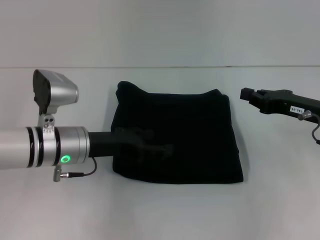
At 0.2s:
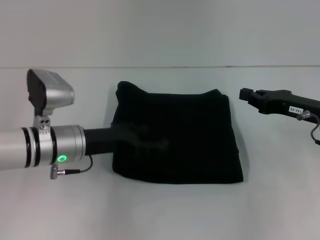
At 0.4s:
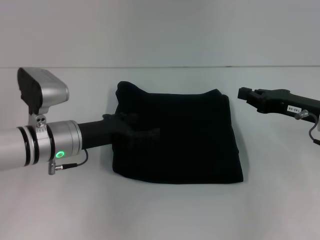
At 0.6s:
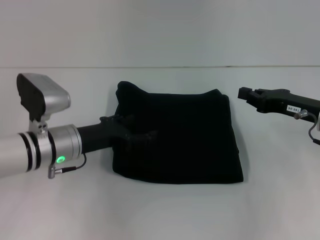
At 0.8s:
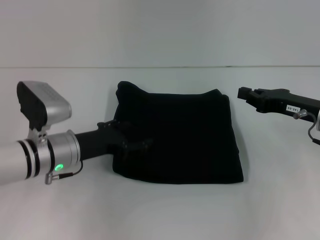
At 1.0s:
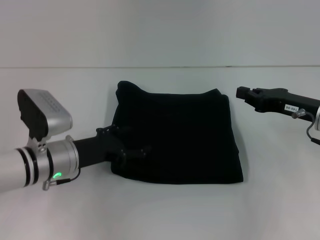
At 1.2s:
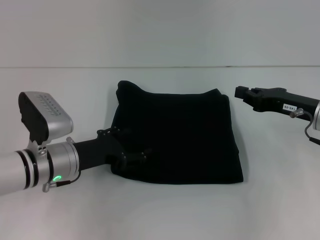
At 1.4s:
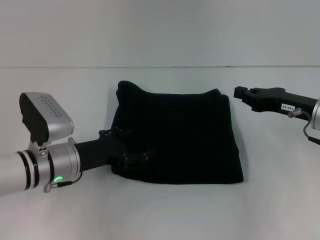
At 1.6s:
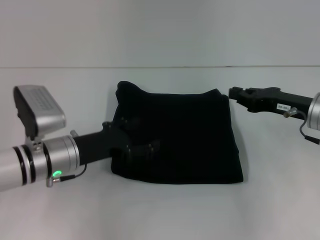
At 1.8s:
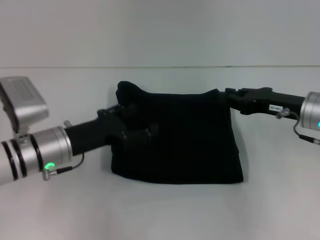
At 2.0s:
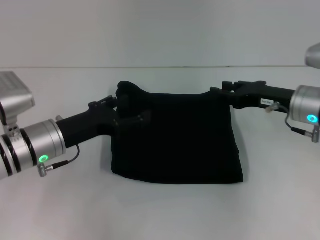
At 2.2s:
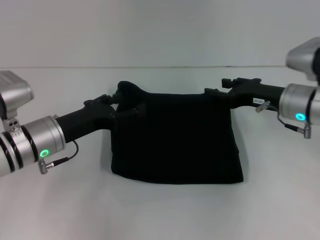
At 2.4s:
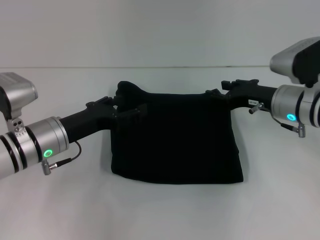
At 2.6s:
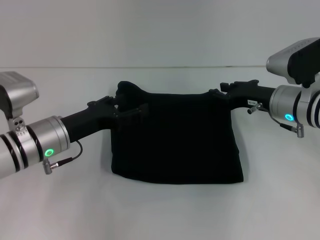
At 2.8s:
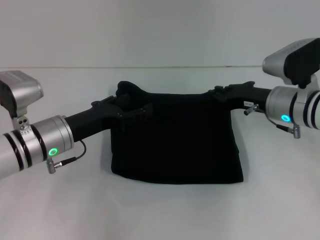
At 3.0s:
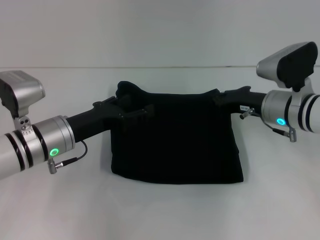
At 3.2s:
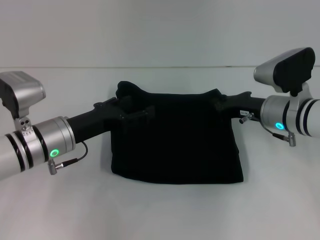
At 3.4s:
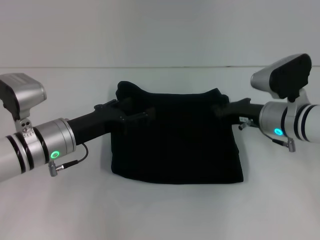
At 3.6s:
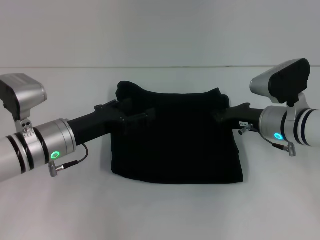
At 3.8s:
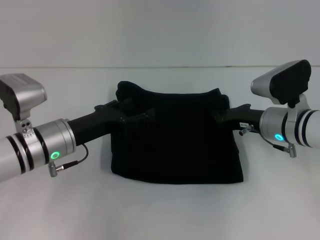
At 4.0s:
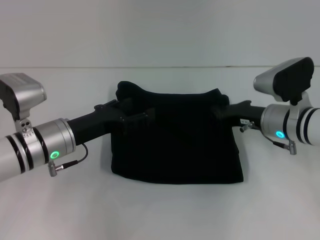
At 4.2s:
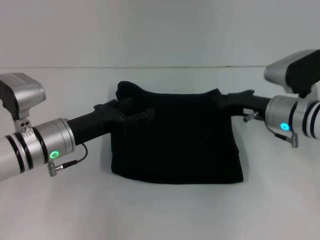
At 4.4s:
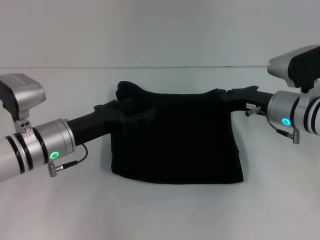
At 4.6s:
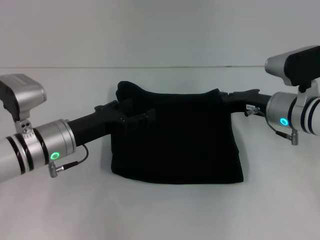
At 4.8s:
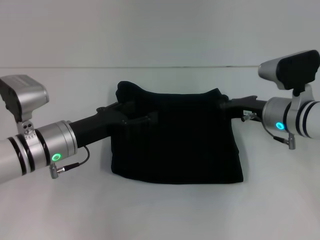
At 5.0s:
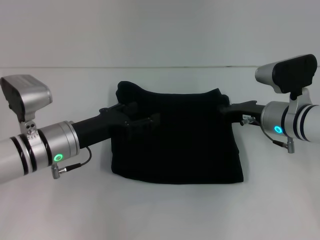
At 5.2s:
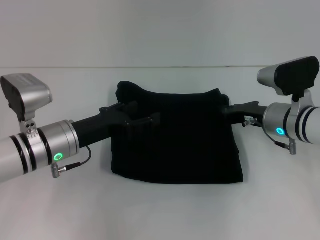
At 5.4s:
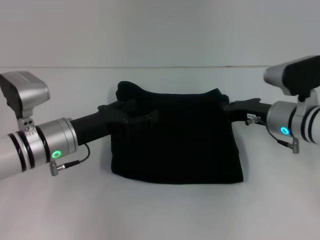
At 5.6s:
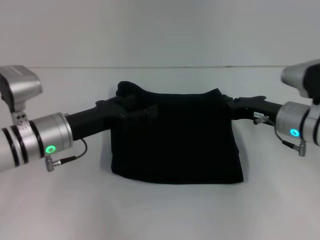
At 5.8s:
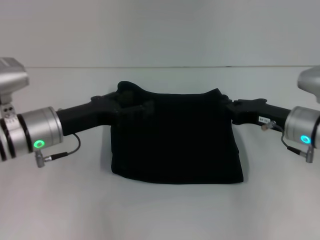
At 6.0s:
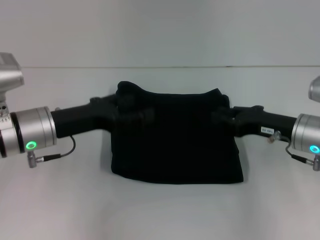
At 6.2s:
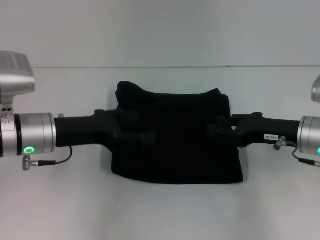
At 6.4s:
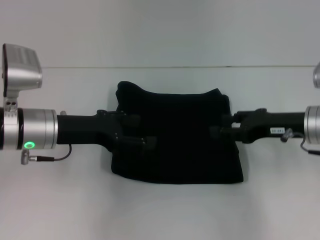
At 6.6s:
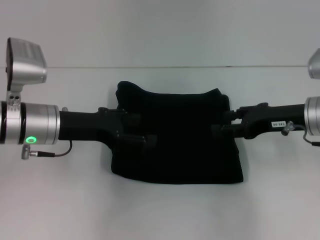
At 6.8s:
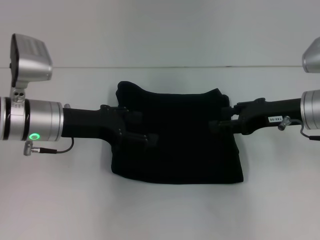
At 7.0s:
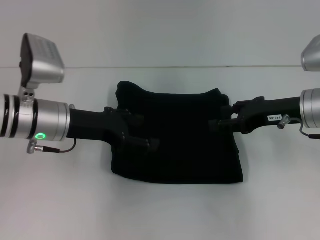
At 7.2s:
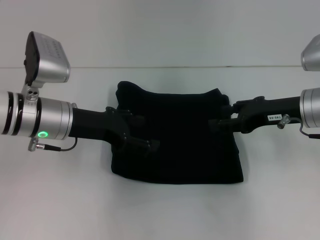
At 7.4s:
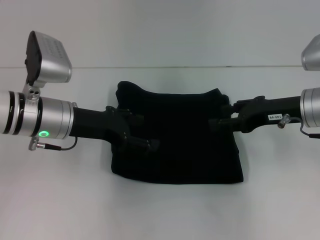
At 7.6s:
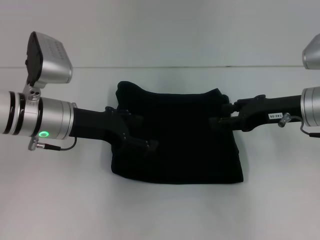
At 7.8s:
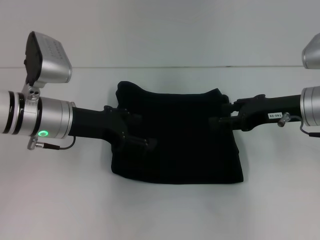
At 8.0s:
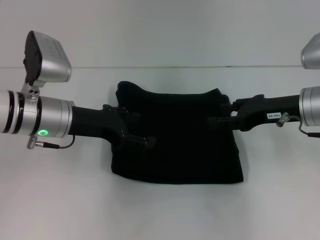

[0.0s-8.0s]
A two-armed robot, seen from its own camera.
0.0s to 1.6s: There are only small adjustments of the grippers.
1.6s to 3.2s: The right gripper moves to the left, about 5 cm, and opens, then closes again.
3.2s to 4.8s: The grippers move only a little.
4.8s to 6.4s: The right gripper changes place by some 10 cm, and opens. Meanwhile the left gripper changes place by about 5 cm.
6.4s to 8.0s: The grippers move only a little.

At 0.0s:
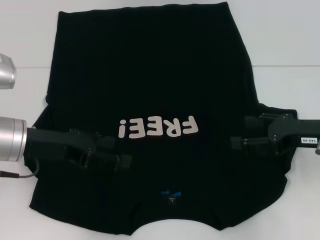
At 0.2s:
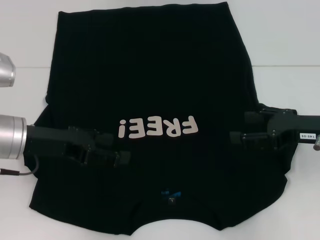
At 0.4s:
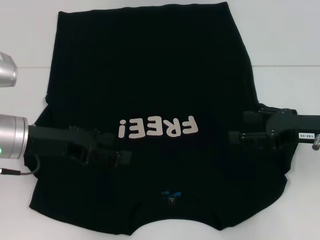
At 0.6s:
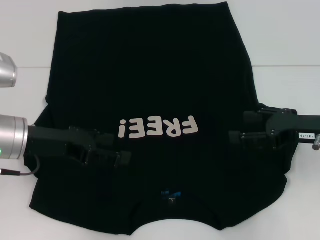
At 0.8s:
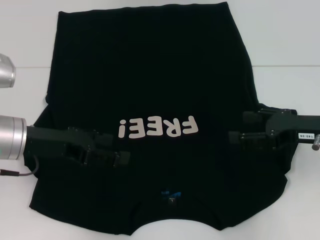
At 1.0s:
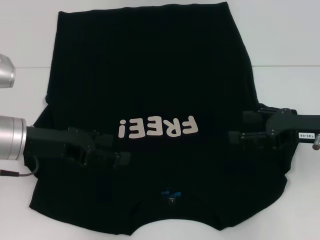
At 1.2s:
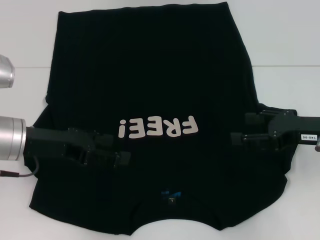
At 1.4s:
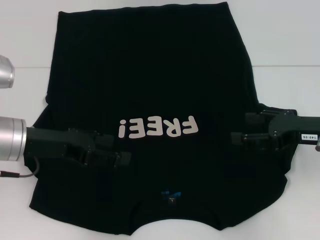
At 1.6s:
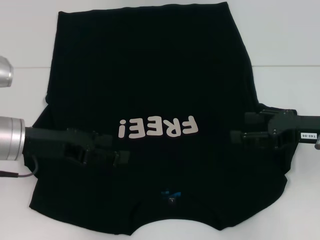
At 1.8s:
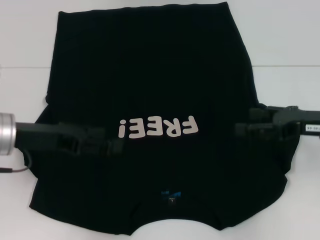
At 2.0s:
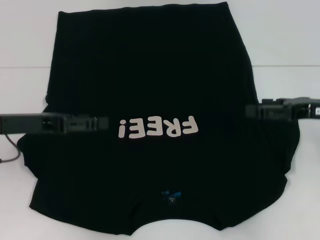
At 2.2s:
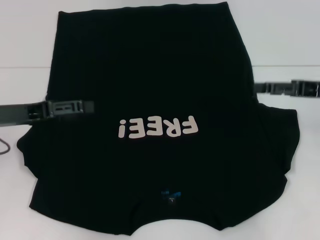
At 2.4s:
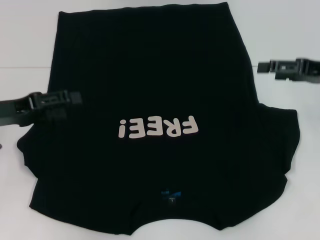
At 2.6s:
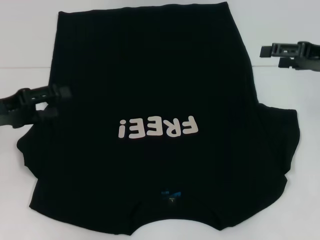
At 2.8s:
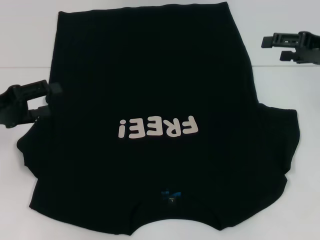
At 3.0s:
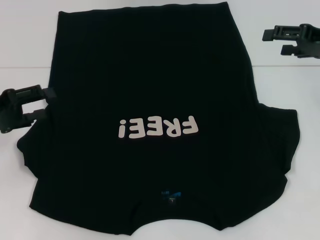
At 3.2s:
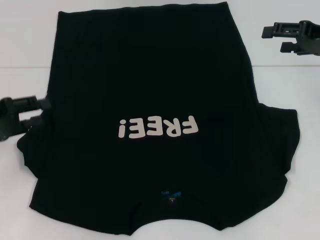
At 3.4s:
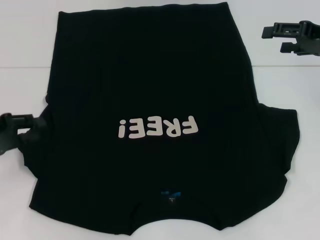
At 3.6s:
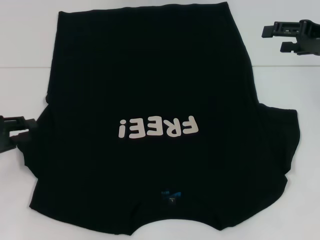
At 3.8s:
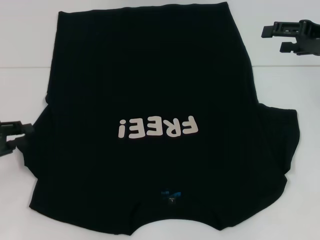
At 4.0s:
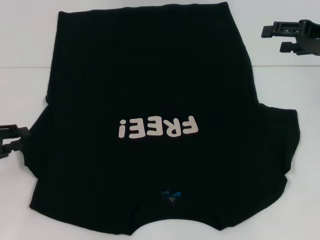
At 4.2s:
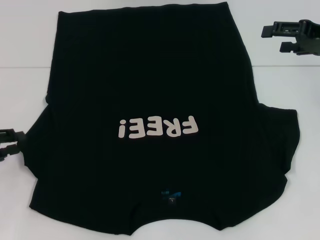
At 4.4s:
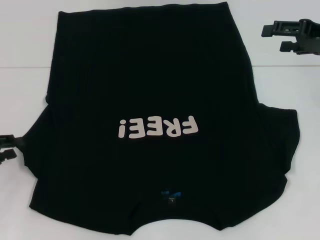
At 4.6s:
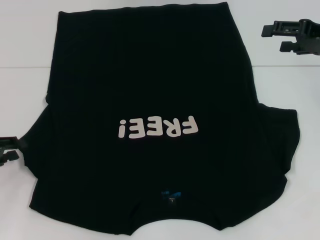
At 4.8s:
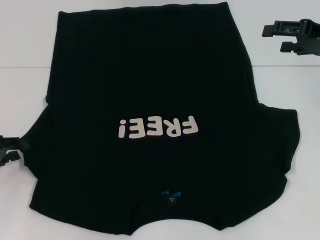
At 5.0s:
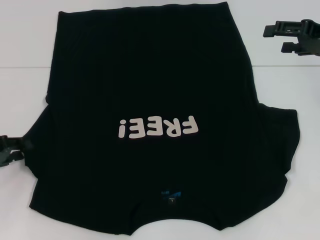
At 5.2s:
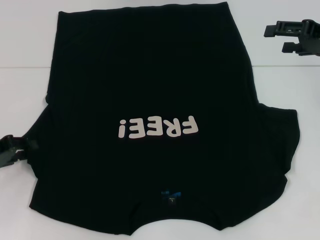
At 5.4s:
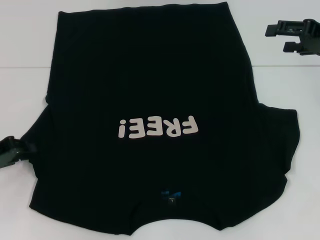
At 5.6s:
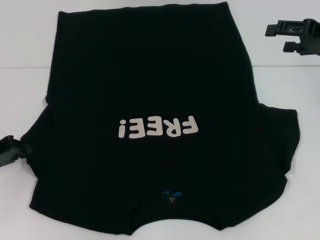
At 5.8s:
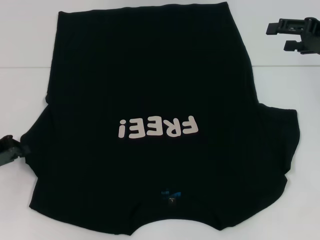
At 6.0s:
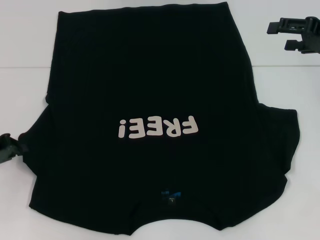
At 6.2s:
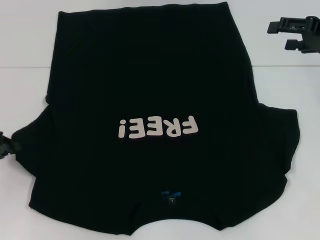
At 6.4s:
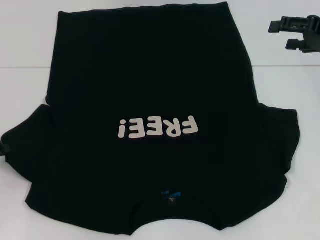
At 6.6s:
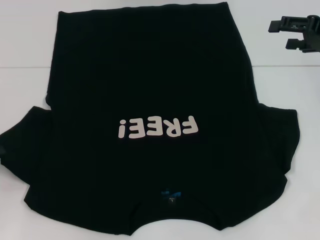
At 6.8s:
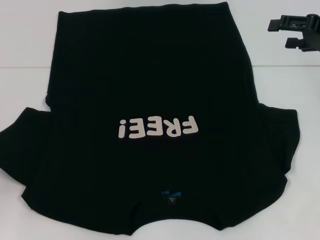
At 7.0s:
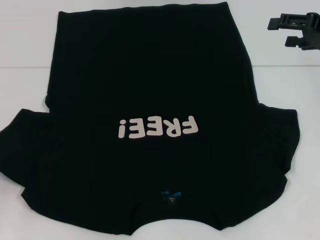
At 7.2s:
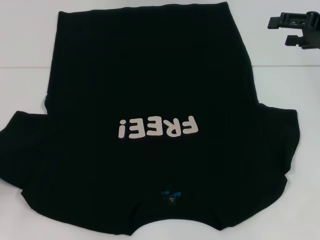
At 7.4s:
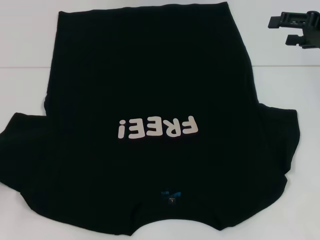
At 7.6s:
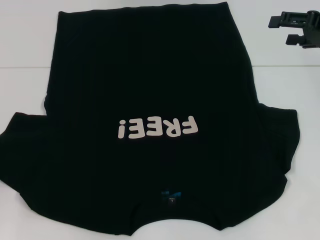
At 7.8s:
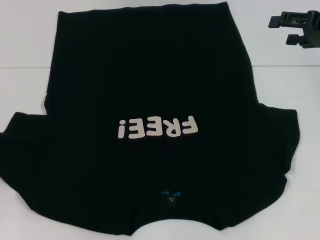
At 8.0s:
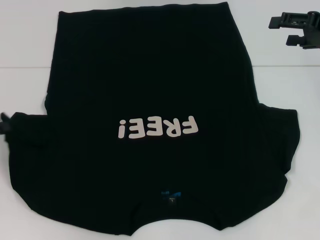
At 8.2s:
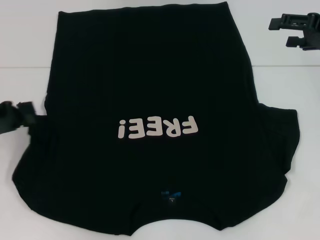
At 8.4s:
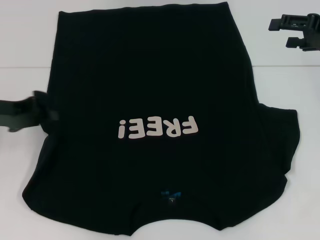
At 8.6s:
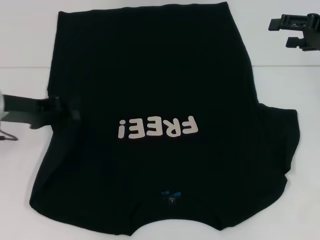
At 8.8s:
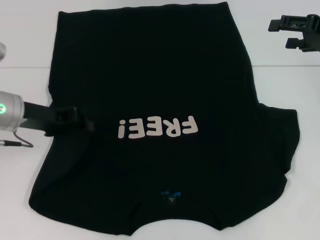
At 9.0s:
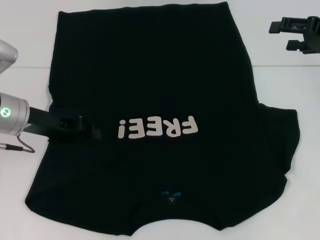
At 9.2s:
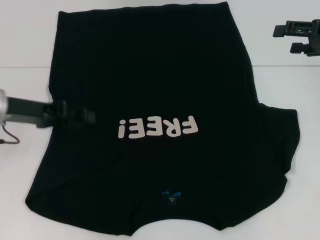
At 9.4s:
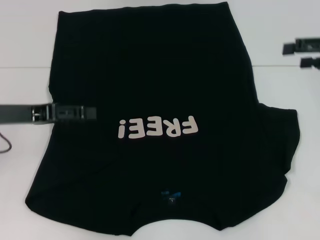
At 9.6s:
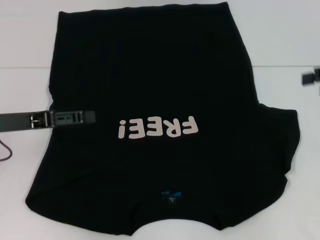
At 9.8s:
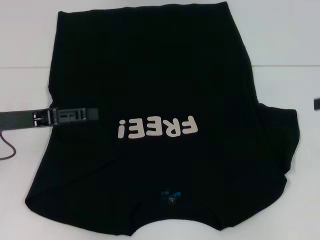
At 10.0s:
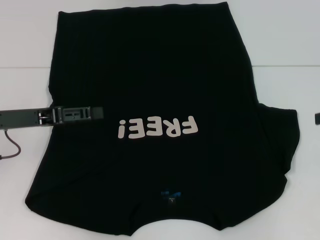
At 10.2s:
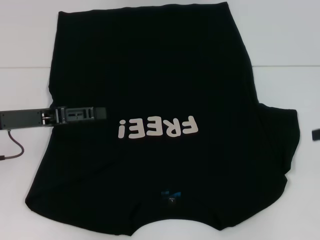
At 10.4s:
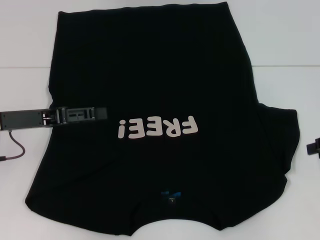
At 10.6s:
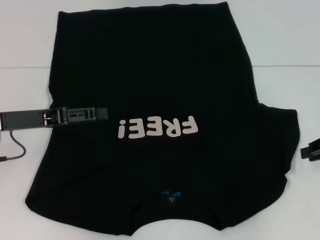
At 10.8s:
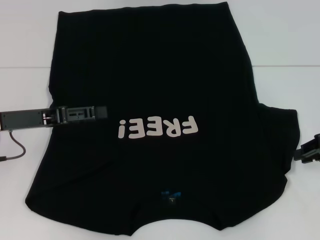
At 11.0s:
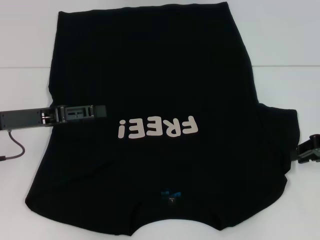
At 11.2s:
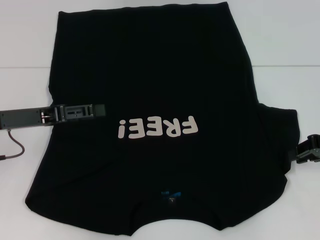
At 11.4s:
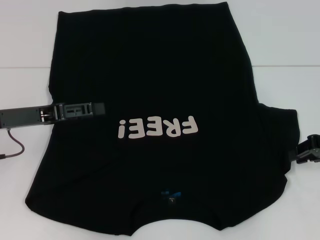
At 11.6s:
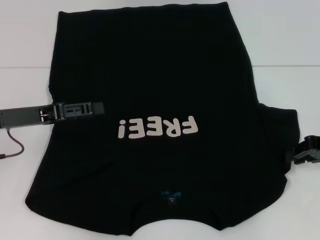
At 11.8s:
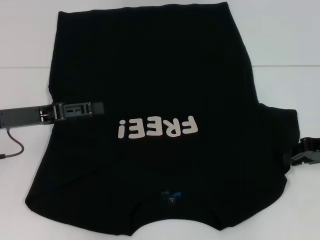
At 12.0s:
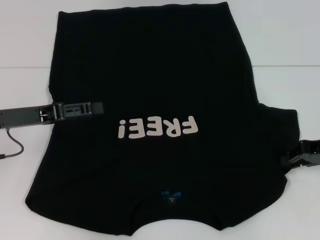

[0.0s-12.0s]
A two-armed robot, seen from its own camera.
Step, 0.0s to 9.0s: Fold the bottom left sleeve with your left hand.
0.0s to 1.6s: Both grippers stay about where they are.
1.6s to 3.0s: The left gripper moves to the left, approximately 10 cm, while the right gripper goes roughly 10 cm forward and upward.
3.0s to 4.4s: The left gripper shifts some 5 cm downward, and closes its fingers.
6.0s to 7.6s: The left gripper moves to the left, about 5 cm.
7.6s to 9.0s: The left gripper travels to the right and forward by some 20 cm.
9.0s to 10.4s: The right gripper travels backward and downward by roughly 10 cm, and closes; the left gripper moves about 5 cm, and opens its fingers.
10.4s to 12.0s: The right gripper shifts by approximately 5 cm.

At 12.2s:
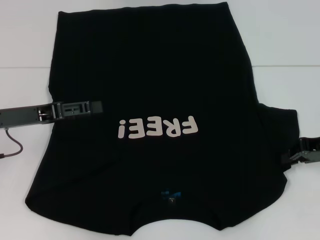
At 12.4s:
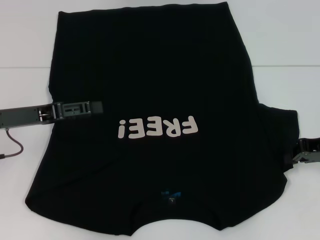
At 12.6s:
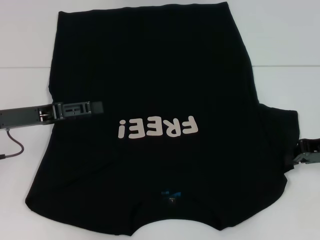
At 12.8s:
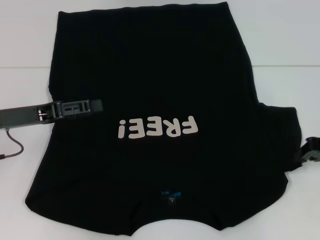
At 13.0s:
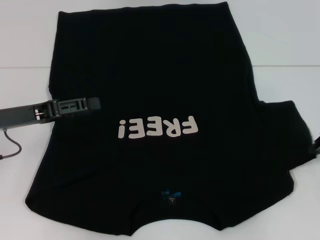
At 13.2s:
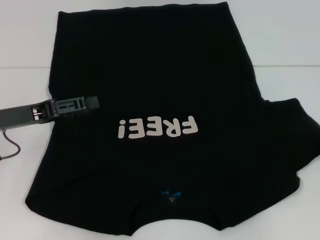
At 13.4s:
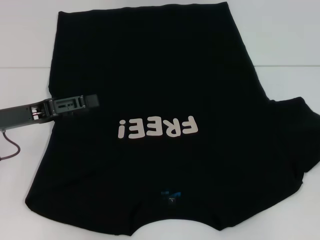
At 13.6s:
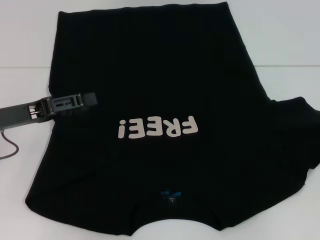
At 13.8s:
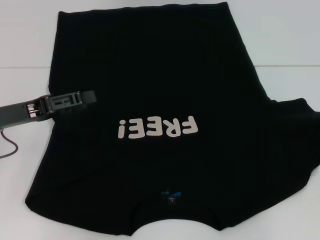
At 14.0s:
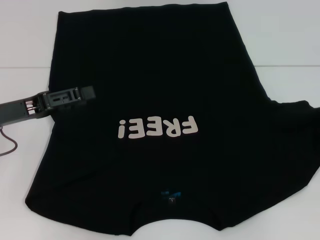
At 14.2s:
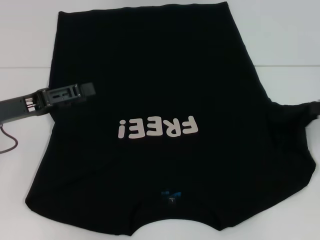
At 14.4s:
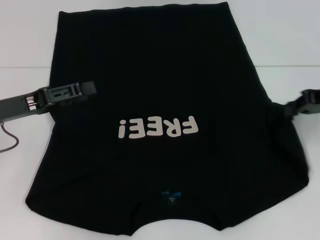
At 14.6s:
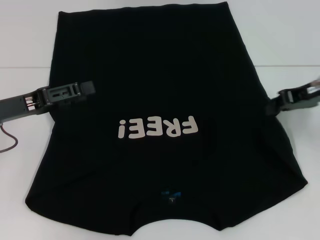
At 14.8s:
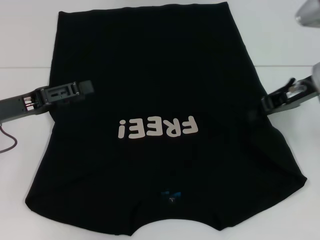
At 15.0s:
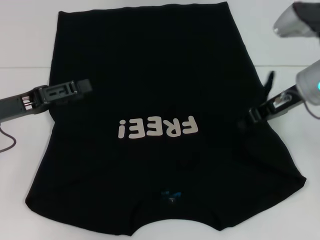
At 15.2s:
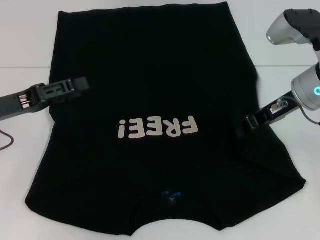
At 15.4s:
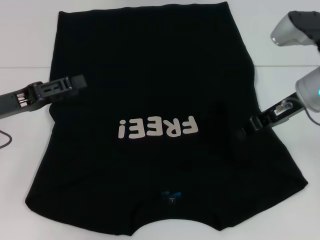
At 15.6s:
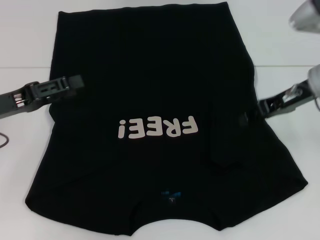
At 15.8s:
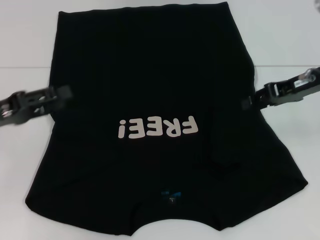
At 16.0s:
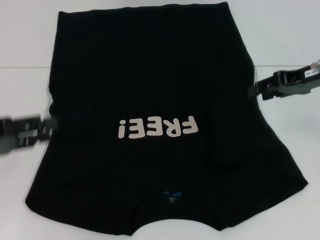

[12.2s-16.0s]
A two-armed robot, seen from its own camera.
Step, 12.2s to 15.6s: Fold the bottom right sleeve with your right hand.
12.2s to 13.4s: The right gripper heads to the right, covering some 5 cm.
13.4s to 14.8s: The right gripper moves to the left, some 15 cm.
14.8s to 16.0s: The left gripper changes place by some 5 cm. Meanwhile the right gripper opens up.
